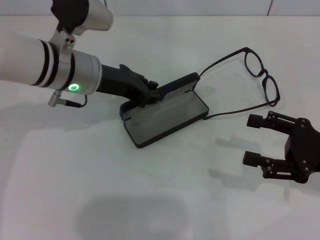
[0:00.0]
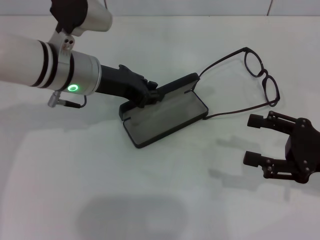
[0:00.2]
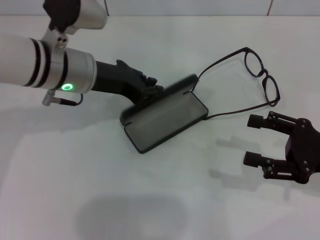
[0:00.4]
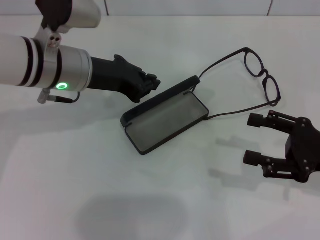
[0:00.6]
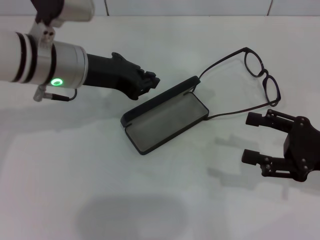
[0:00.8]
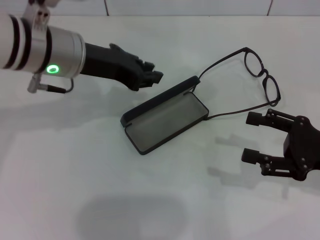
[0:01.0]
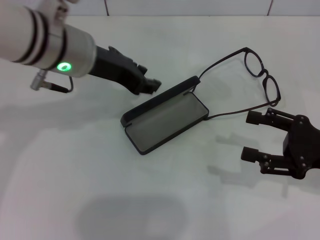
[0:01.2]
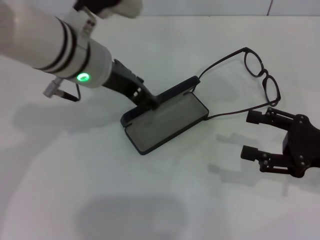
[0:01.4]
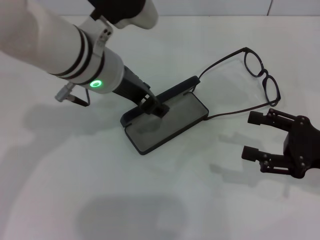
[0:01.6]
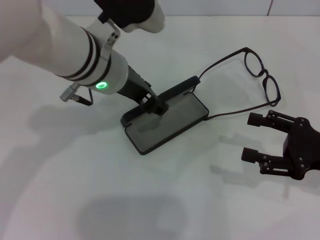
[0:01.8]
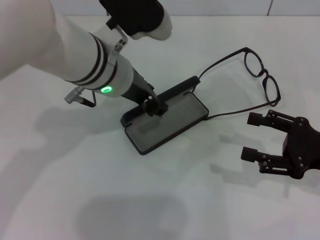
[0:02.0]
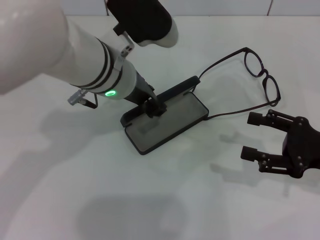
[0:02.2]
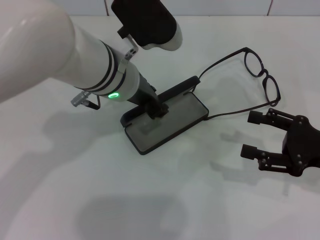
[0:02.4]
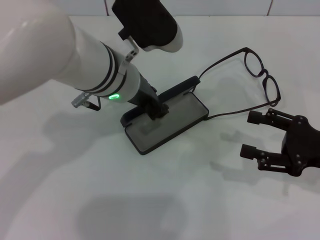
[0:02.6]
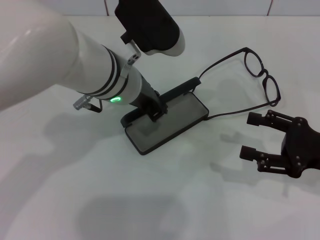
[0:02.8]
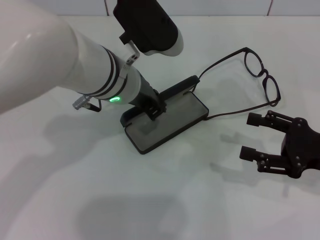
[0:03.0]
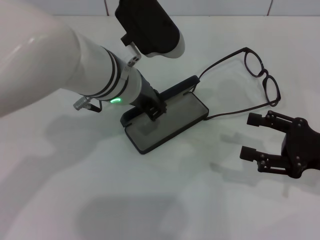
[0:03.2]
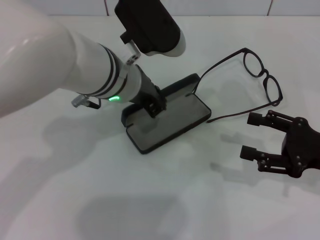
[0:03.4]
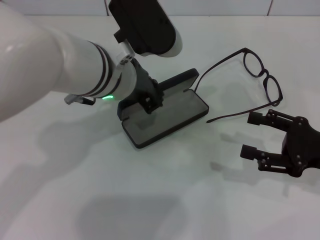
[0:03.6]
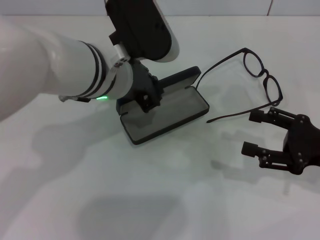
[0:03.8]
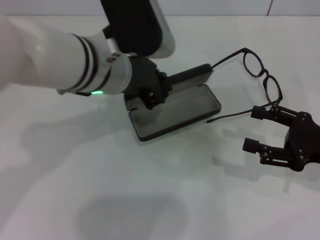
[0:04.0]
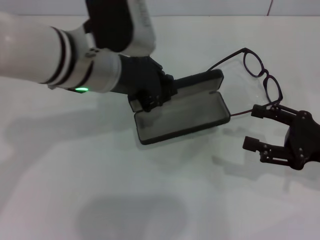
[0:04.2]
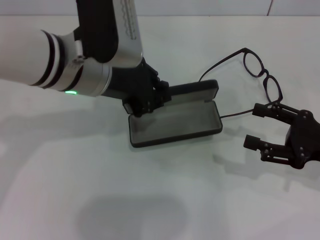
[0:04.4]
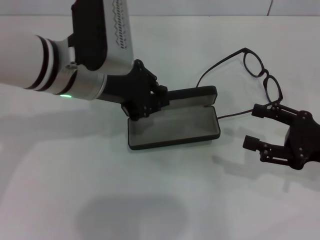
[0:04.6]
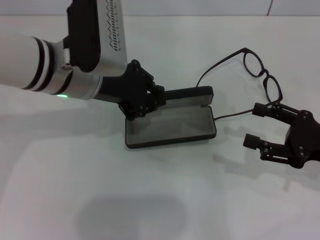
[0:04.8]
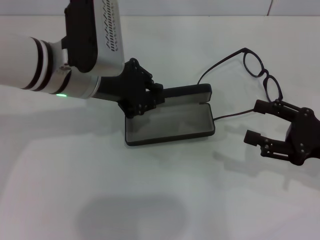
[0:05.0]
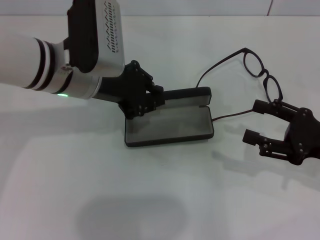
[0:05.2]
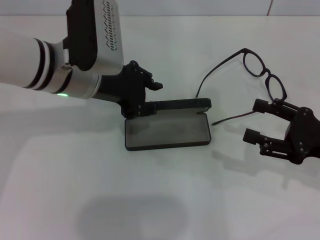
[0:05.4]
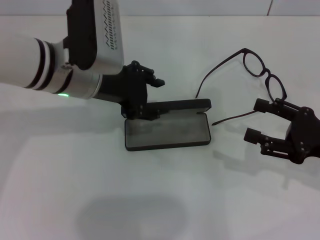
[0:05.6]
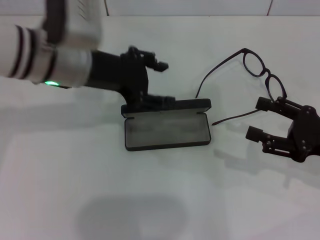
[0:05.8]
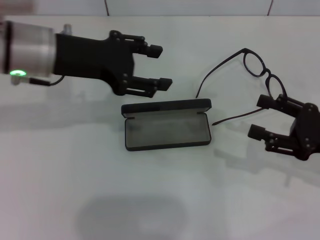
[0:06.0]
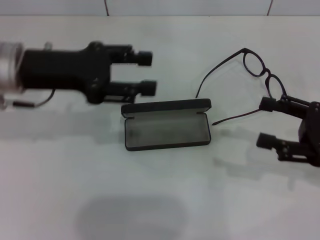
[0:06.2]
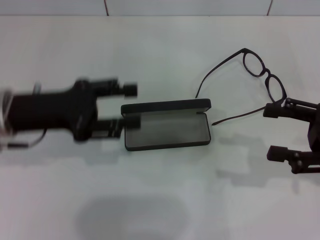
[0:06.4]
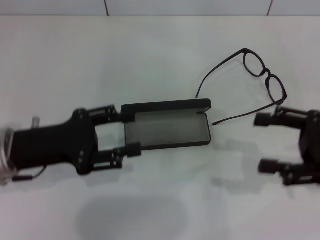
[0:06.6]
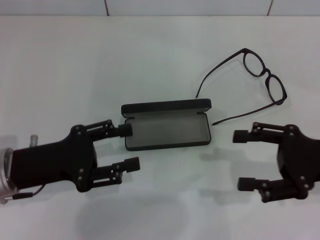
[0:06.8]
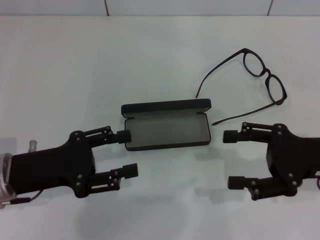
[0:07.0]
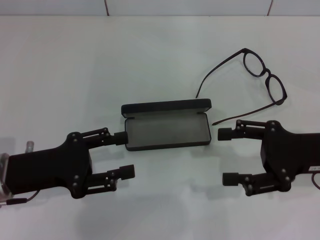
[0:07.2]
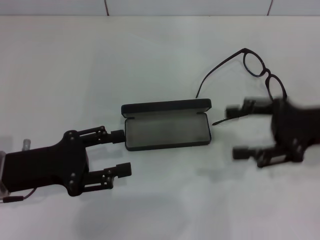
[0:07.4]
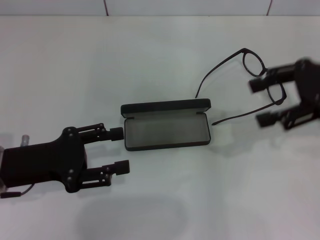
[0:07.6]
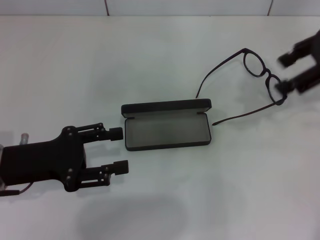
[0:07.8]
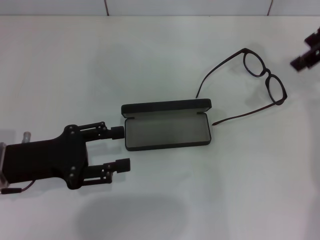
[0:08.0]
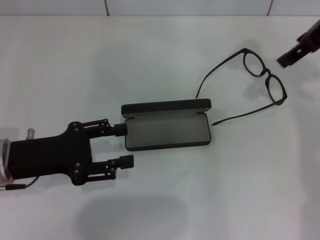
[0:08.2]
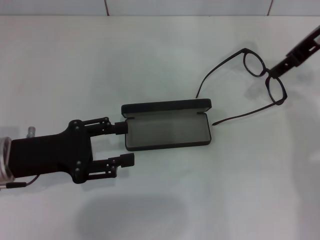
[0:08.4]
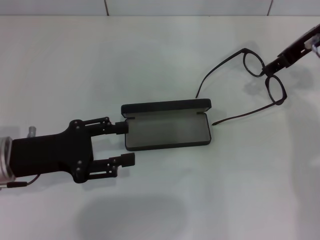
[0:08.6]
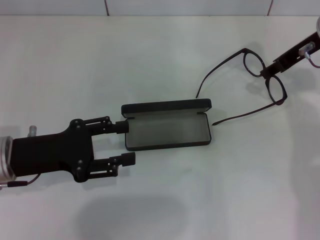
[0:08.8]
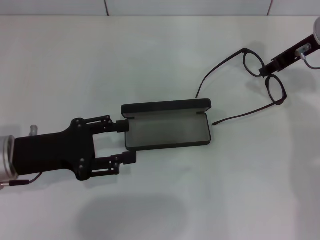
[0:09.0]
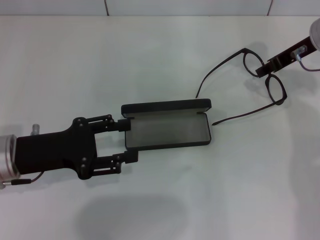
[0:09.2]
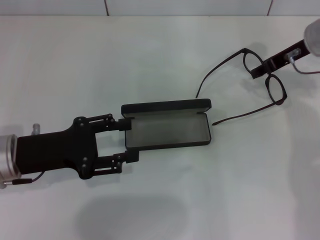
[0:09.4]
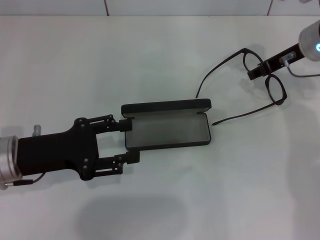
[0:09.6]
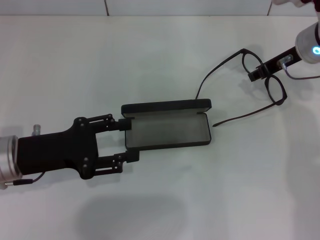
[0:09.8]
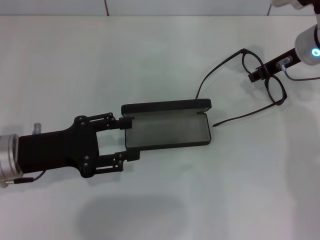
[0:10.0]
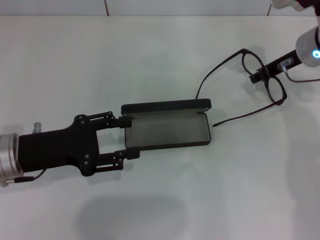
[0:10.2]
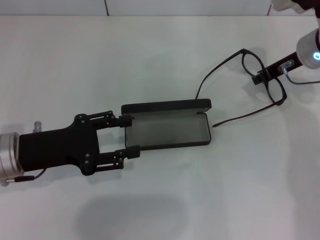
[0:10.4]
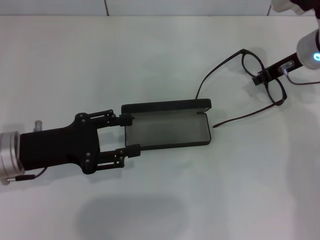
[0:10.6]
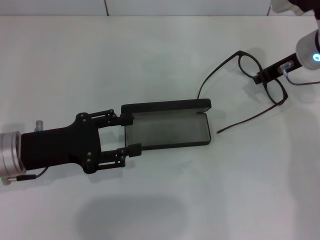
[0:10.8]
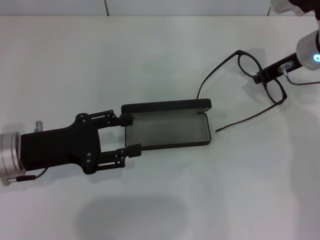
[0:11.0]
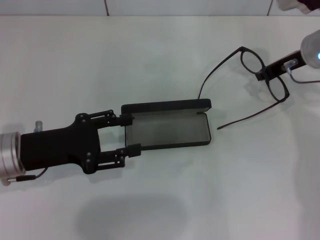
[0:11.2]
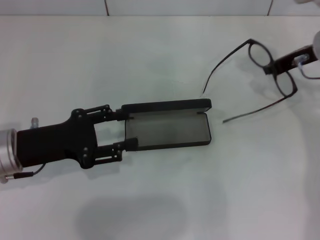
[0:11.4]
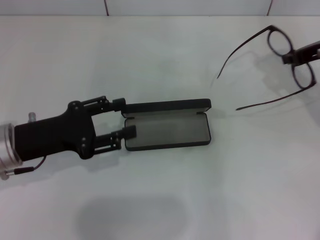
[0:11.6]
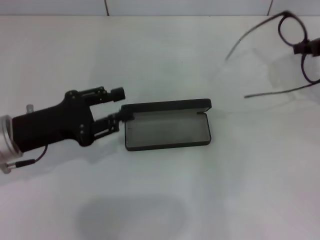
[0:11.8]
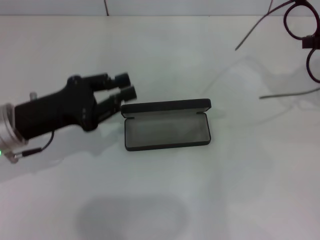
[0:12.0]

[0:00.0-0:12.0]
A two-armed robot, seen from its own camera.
Step, 0:00.0 to 0:03.0: Grab the glasses case with your left hand.
Step, 0:03.4 to 0:06.4: Place the glasses case in the center of the table with your left hand.
Step, 0:06.6 to 0:10.6: Grab the eyeglass frame with your right hand.
0:00.0 to 0:01.6: The left gripper ends up some 5 cm from where it was.
0:01.6 to 0:03.0: The grippers make only small movements.
0:03.0 to 0:04.4: The left gripper shifts by roughly 5 cm.
0:04.4 to 0:06.0: The left gripper shifts about 5 cm to the left, and opens up.
0:06.0 to 0:07.6: The left gripper shifts roughly 15 cm downward, backward and to the left. The right gripper heads upward and forward, covering roughly 15 cm.
0:07.6 to 0:09.0: The right gripper moves forward and to the left, some 10 cm, reaches roughly 10 cm upward, then returns, and closes.
0:09.0 to 0:10.4: The grippers make only small movements.
0:10.4 to 0:12.0: The right gripper heads to the right, upward and backward, covering approximately 15 cm.

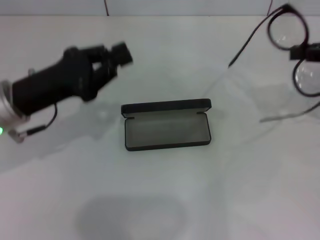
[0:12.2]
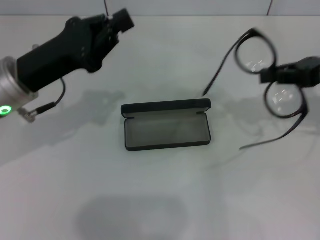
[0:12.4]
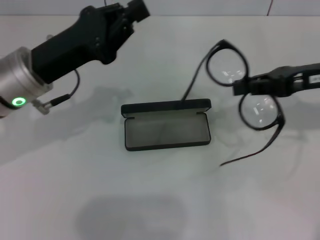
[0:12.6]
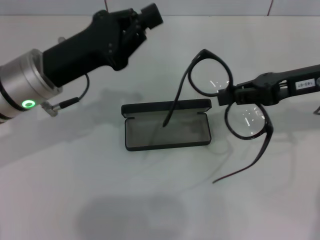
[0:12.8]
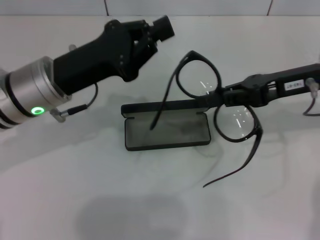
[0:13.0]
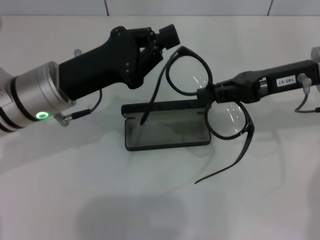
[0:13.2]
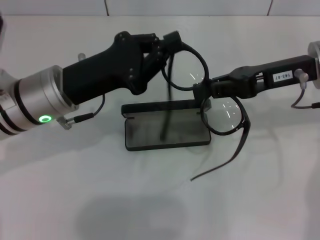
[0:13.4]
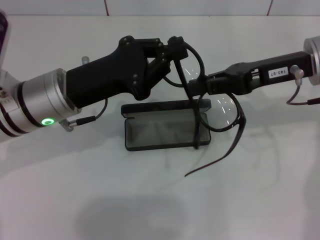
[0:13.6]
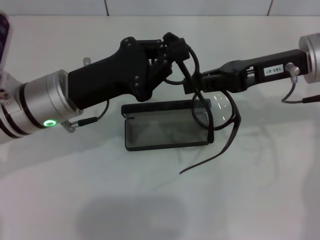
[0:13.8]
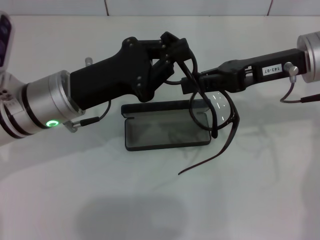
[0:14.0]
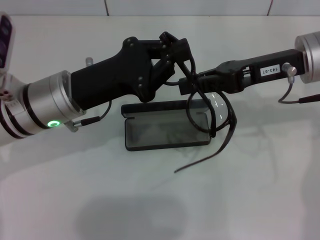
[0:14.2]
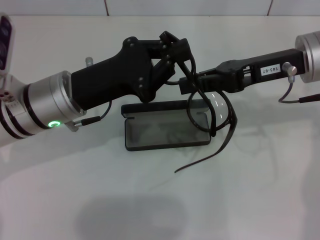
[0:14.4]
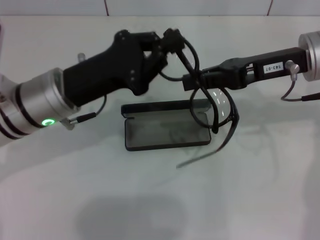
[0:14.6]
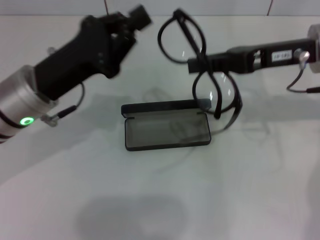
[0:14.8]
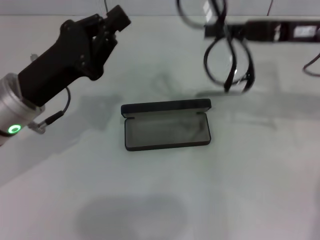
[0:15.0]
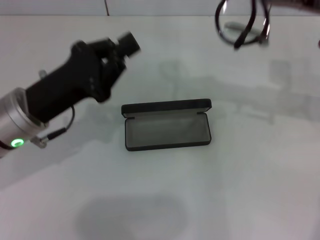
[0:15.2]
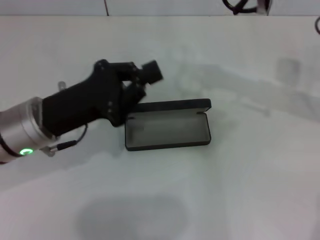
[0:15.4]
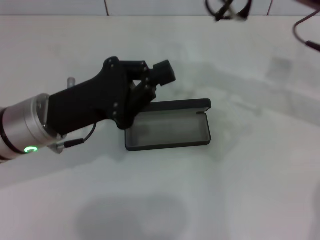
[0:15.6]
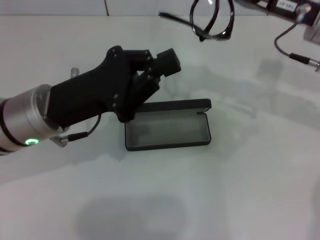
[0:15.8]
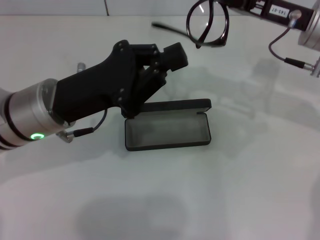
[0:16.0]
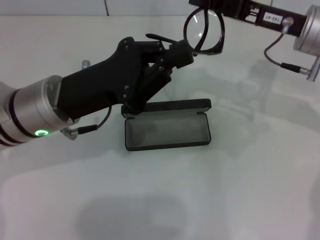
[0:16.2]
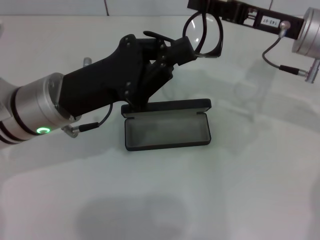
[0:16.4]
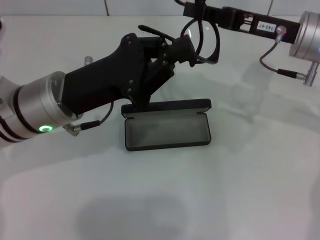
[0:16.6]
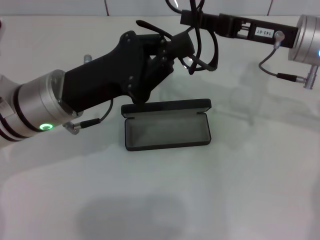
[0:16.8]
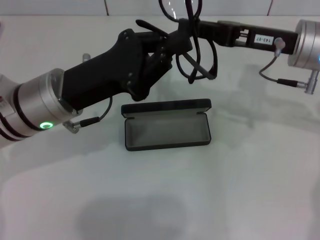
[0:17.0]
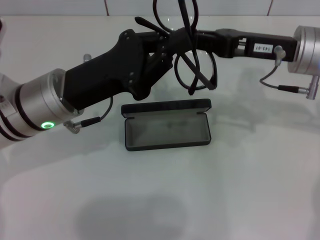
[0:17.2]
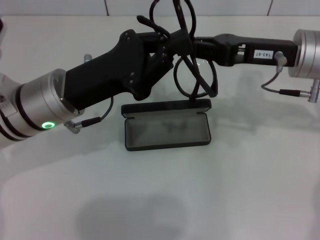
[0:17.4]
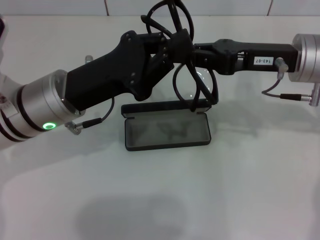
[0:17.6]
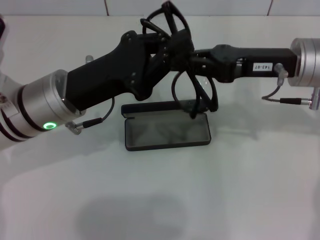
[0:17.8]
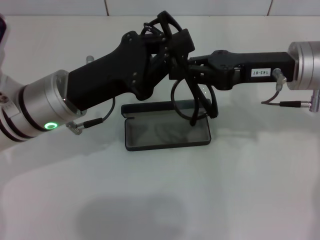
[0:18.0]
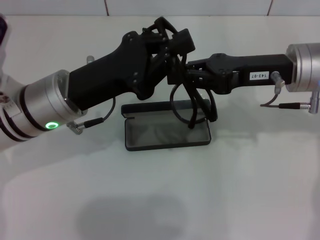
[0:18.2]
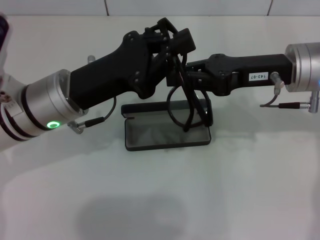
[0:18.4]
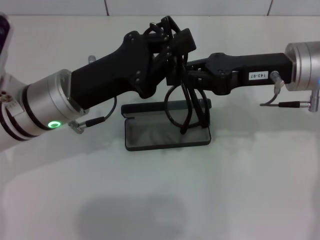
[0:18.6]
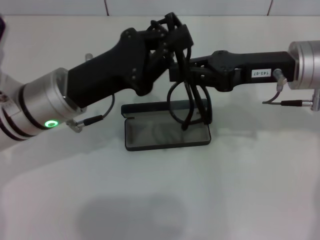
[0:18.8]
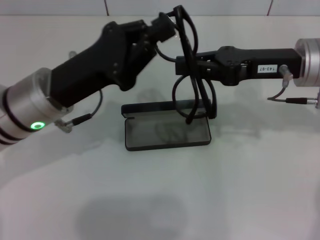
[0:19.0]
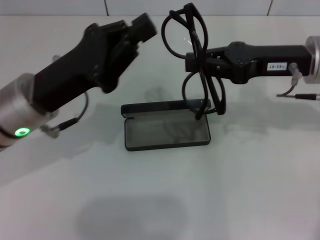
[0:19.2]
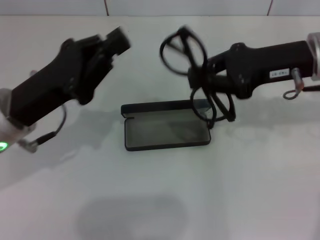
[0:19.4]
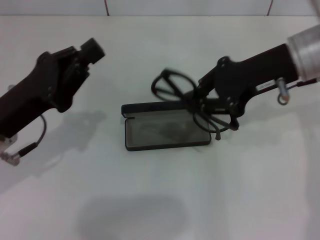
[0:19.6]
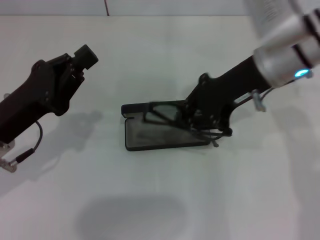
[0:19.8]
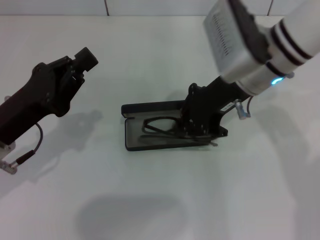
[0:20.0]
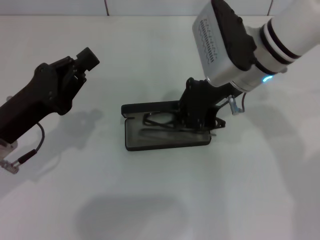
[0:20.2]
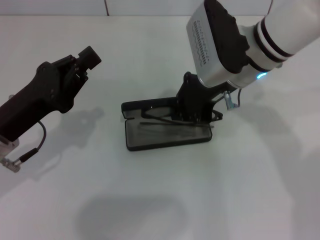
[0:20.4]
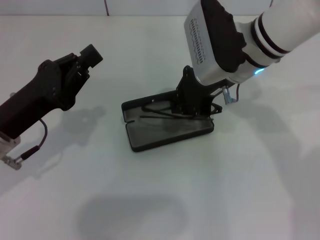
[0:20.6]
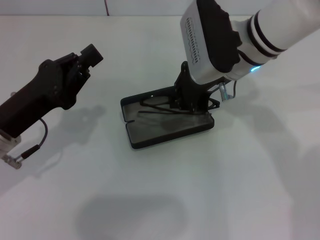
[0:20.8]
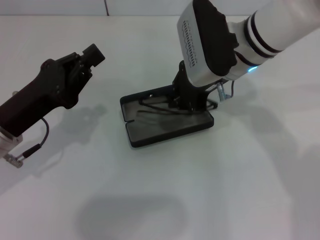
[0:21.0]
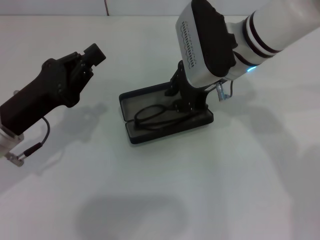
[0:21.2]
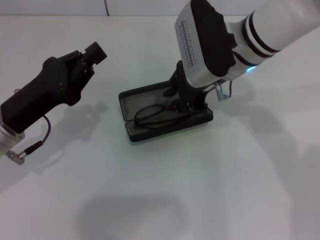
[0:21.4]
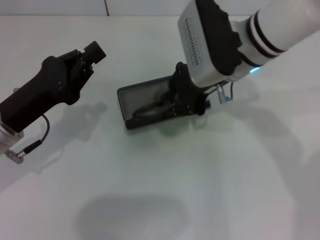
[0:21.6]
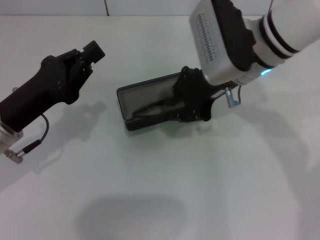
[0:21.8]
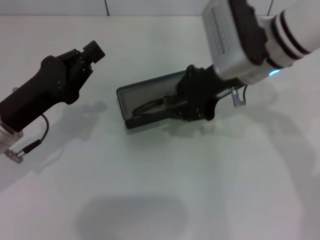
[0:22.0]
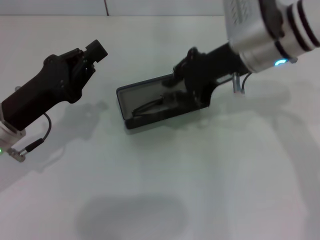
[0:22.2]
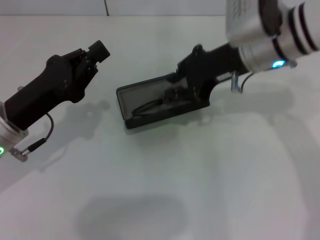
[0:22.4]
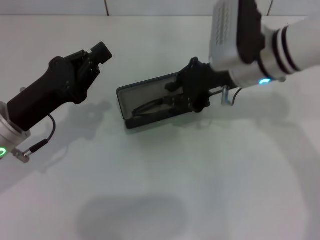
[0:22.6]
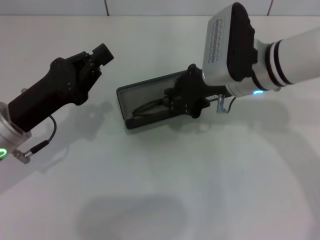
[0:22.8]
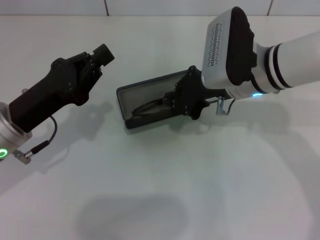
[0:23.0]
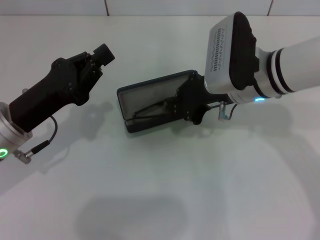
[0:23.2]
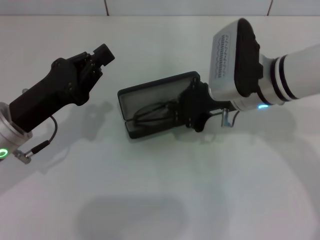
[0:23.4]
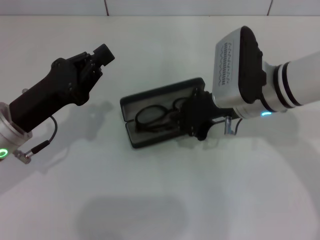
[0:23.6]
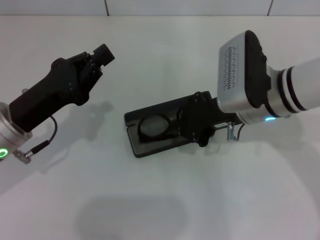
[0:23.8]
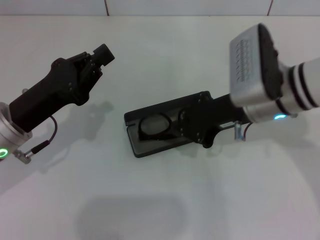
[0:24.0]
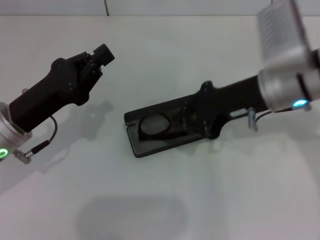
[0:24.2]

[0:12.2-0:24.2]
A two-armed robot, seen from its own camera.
Step, 0:12.2 to 0:18.6: Fold the frame with your left hand.
Step, 0:18.8 to 0:24.0: Put the glasses into the case with your right hand.
0:12.2 to 0:13.8: The right gripper travels to the left by roughly 15 cm. The left gripper moves to the right, about 5 cm.
0:13.8 to 0:15.2: The left gripper moves approximately 5 cm, while the right gripper changes place by about 5 cm.
0:15.2 to 0:16.6: The right gripper changes place by approximately 5 cm; the left gripper shifts by about 5 cm.
0:18.2 to 0:19.8: The right gripper heads to the left, covering some 5 cm. The left gripper is displaced to the left and backward by approximately 10 cm.
0:19.8 to 0:21.2: The right gripper changes place by about 5 cm.
0:22.6 to 0:24.2: The right gripper shifts by approximately 5 cm.
